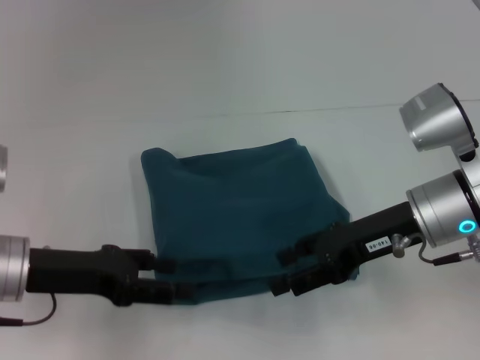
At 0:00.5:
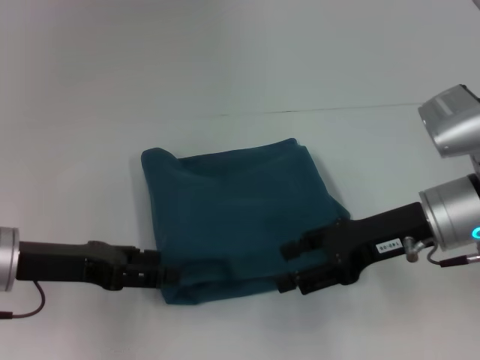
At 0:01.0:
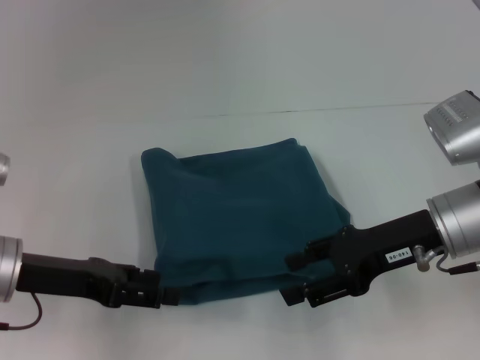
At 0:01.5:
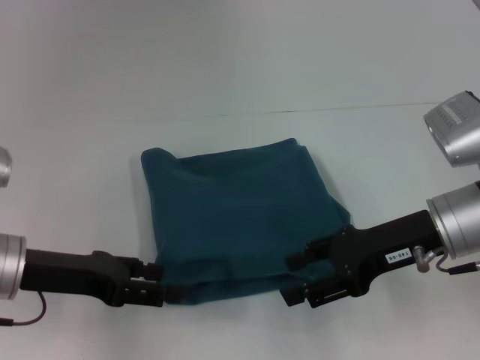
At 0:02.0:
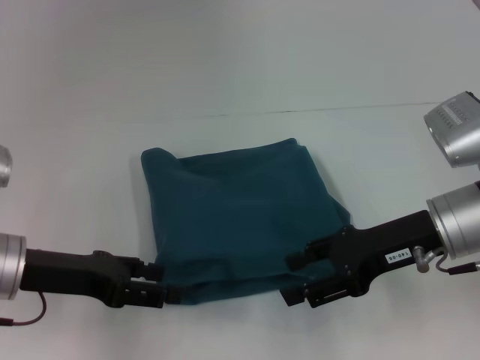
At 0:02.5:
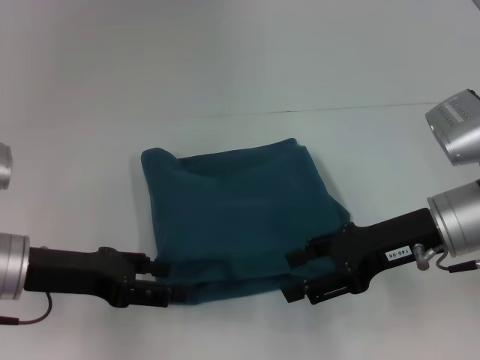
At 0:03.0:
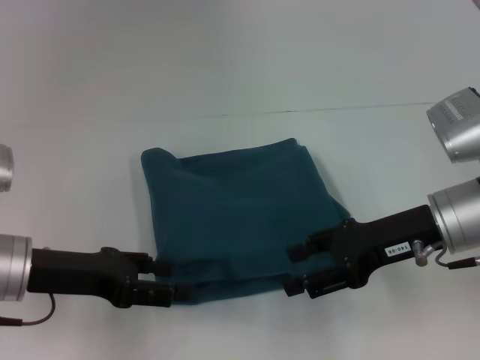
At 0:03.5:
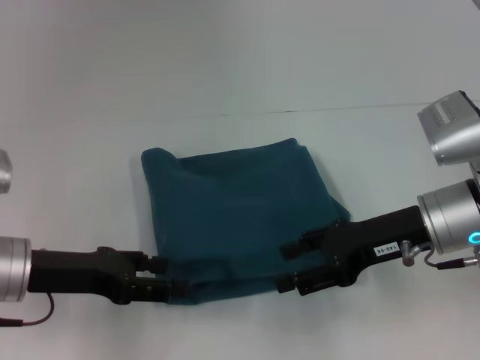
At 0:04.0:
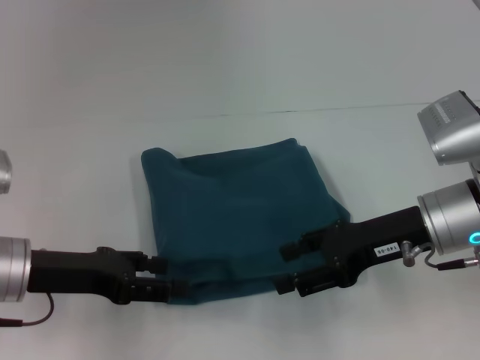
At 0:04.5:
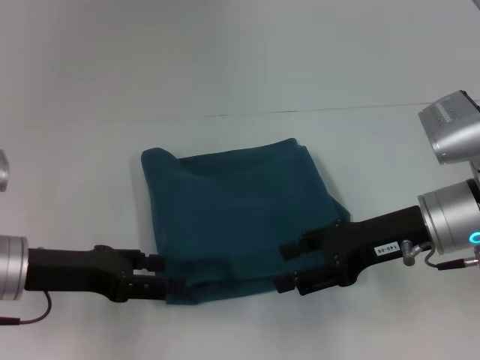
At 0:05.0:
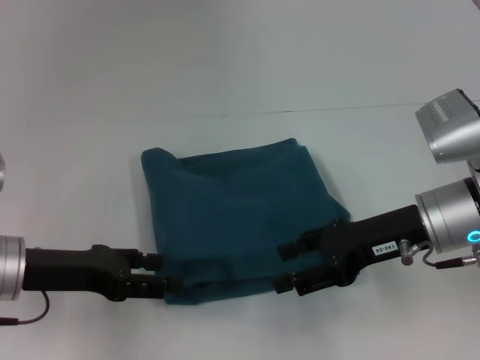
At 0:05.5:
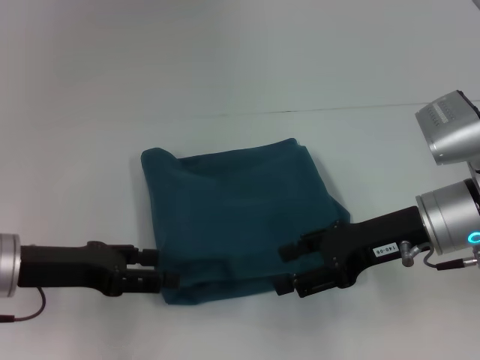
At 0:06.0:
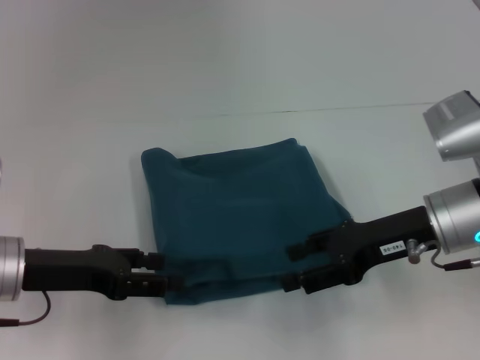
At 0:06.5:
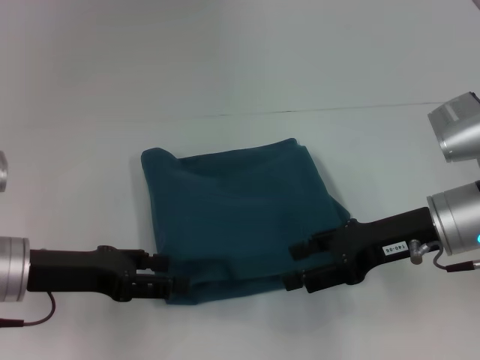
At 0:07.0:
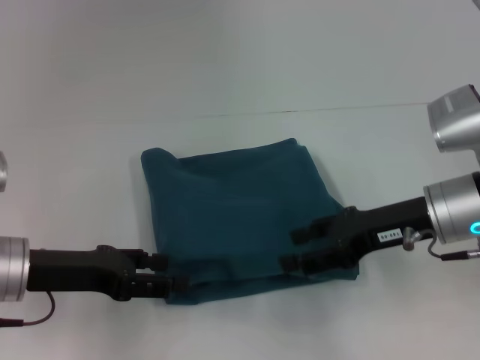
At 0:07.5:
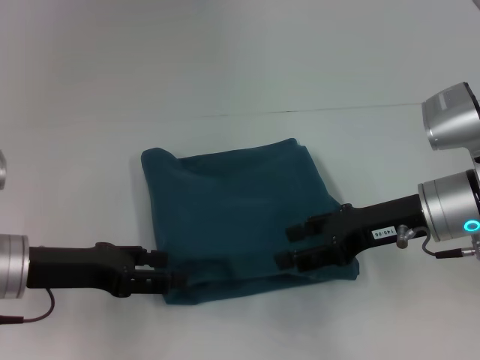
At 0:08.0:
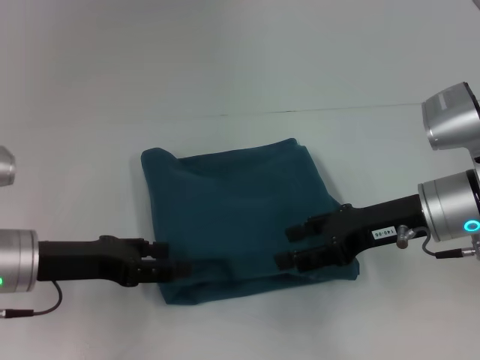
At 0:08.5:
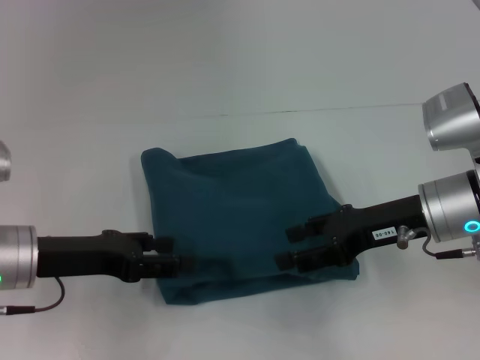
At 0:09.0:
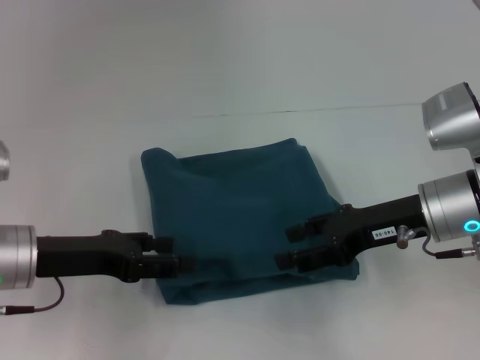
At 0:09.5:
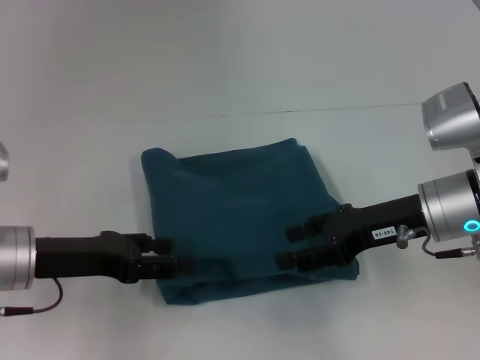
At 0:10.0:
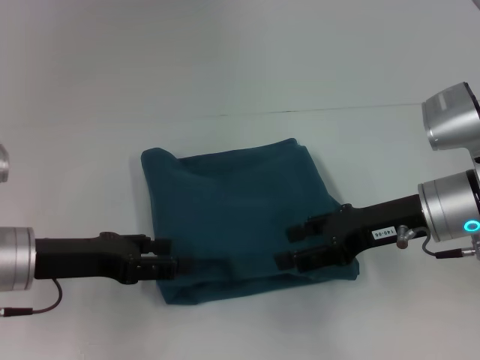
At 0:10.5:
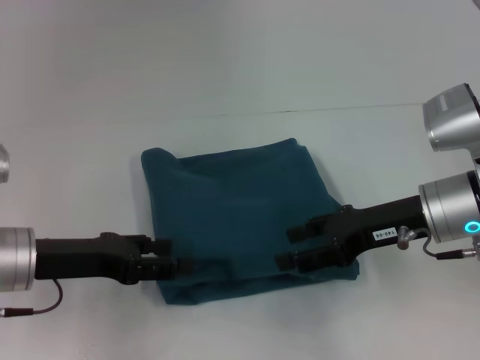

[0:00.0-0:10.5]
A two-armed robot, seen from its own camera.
0:00.0 to 0:02.0: The grippers move only a little.
0:02.0 to 0:04.0: Both grippers stay put.
0:04.0 to 0:06.5: Both grippers stay put.
0:06.5 to 0:10.5: Both grippers stay put.

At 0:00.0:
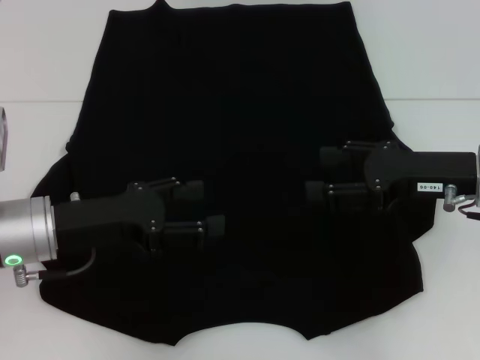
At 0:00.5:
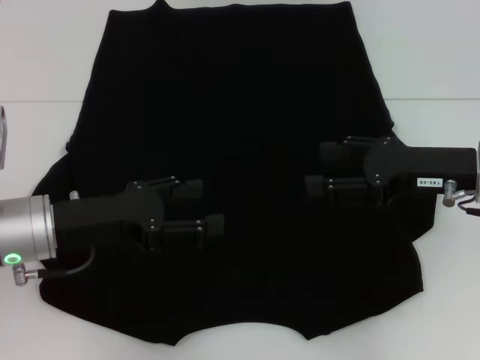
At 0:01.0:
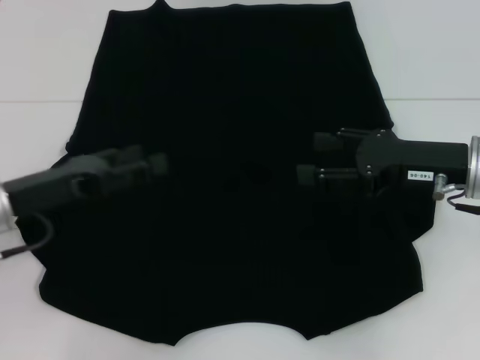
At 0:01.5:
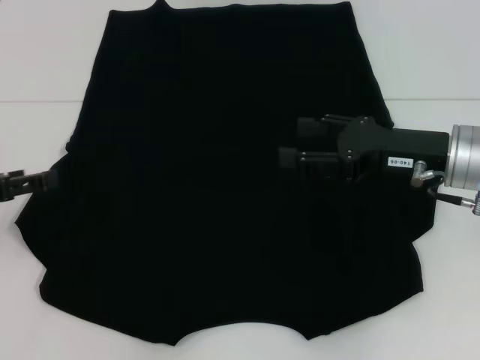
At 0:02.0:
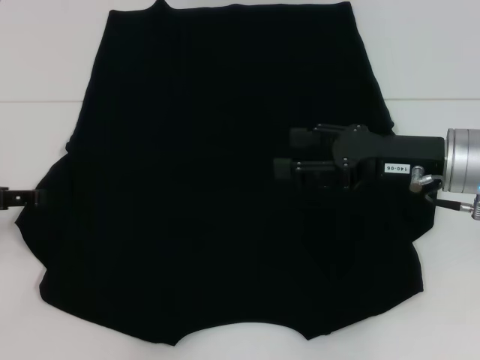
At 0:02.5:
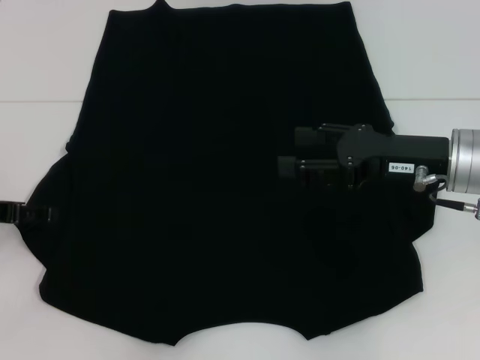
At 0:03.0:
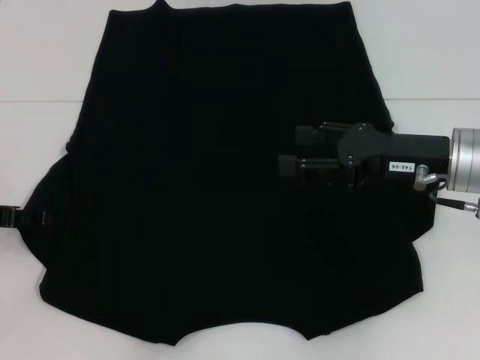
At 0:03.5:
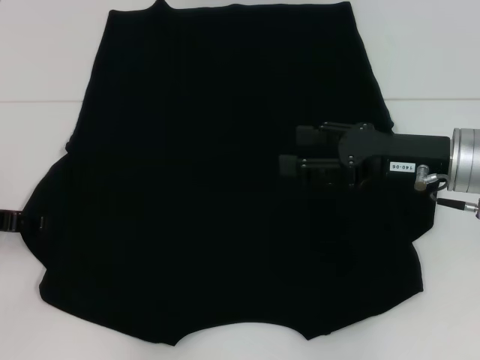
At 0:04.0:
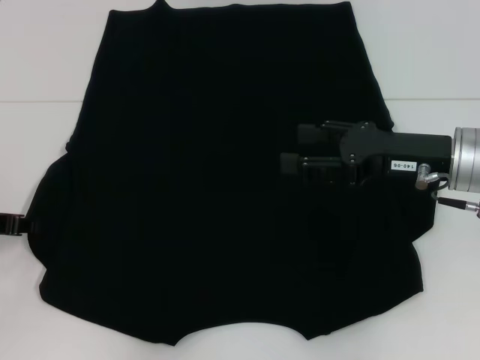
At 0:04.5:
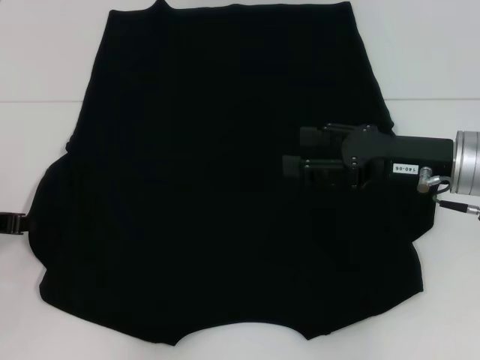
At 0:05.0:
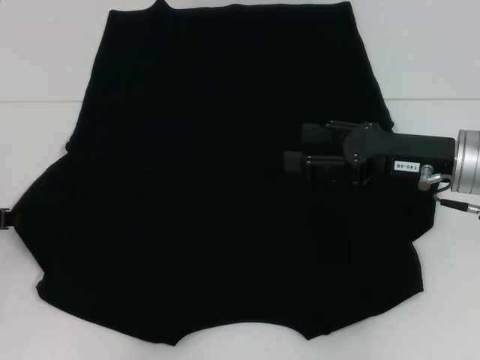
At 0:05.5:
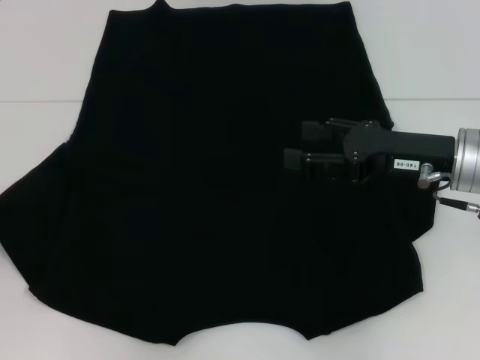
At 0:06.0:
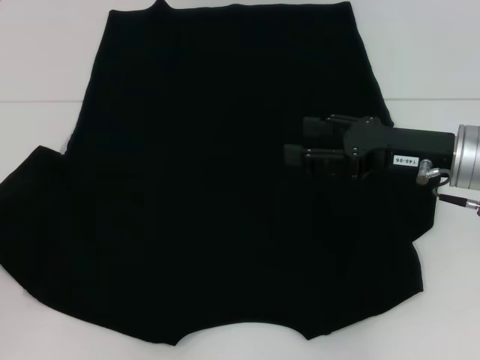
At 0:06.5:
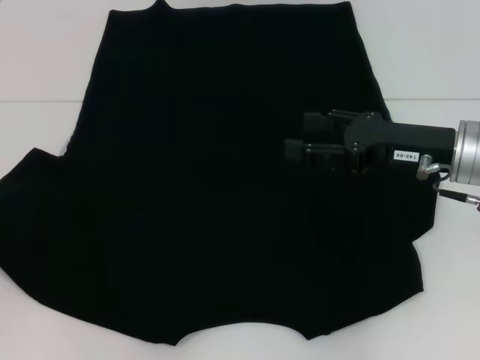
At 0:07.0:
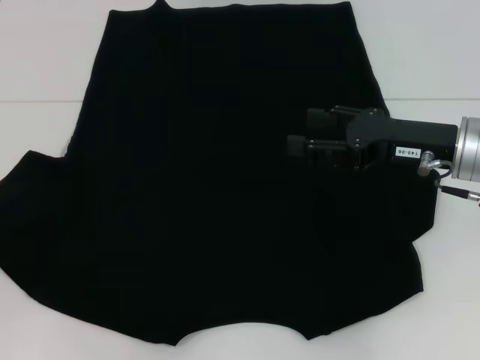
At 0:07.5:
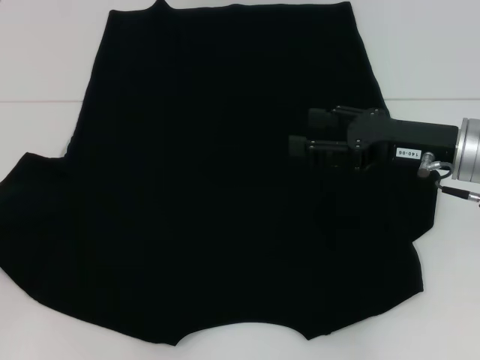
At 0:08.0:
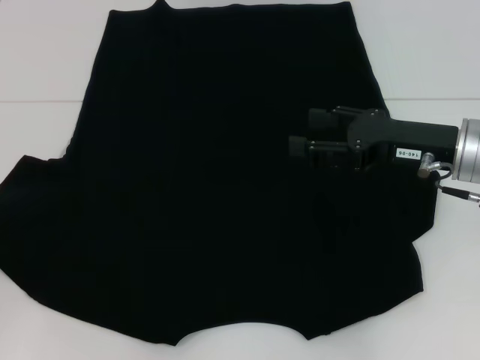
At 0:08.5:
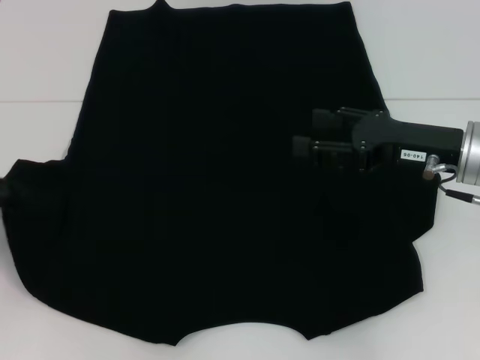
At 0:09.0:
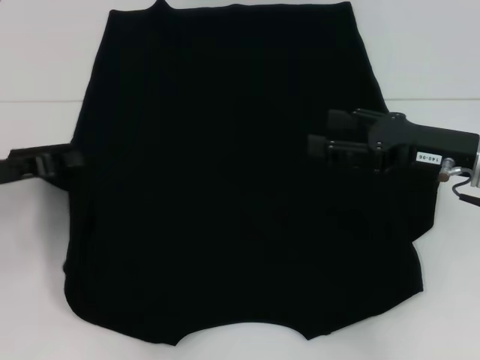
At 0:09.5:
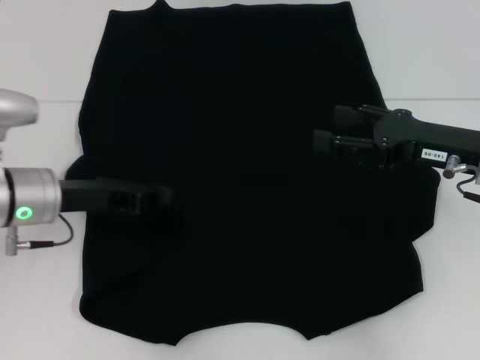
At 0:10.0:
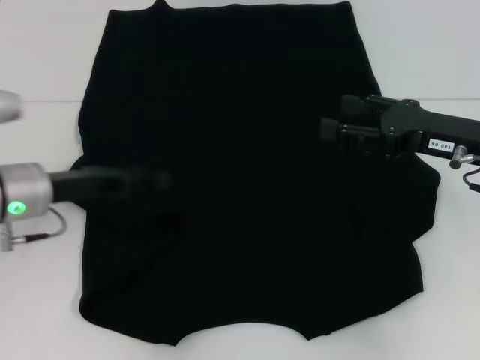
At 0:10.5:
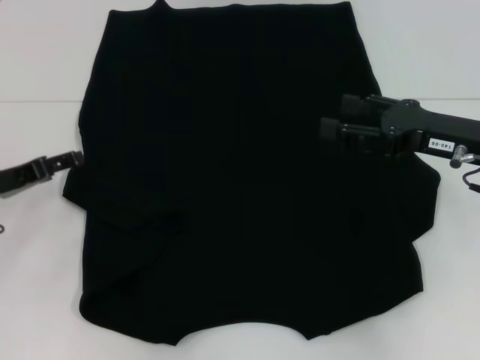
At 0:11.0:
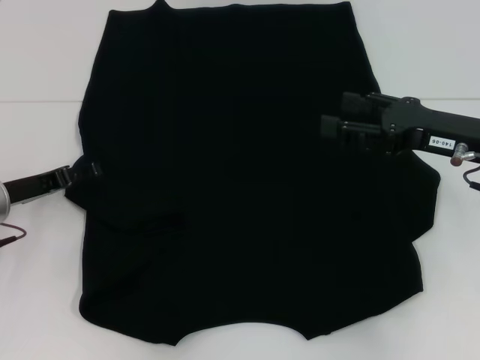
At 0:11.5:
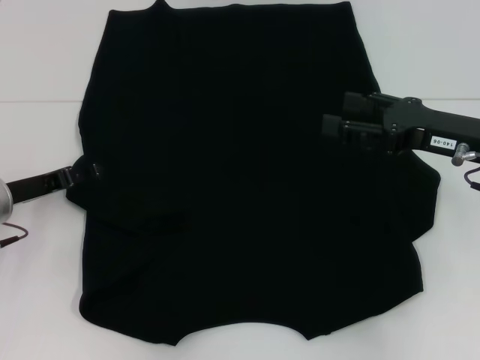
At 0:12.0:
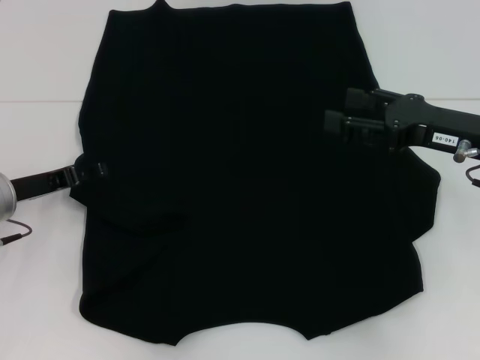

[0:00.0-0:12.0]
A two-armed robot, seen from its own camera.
0:00.0 to 0:02.0: The left gripper travels to the left by some 15 cm.
0:02.0 to 0:04.0: The left gripper closes.
0:04.0 to 0:06.0: The left gripper shifts by some 5 cm, and closes.
0:06.0 to 0:08.0: The grippers move only a little.
0:08.0 to 0:10.0: The left gripper heads to the right and forward, covering roughly 15 cm, and opens up.
0:10.0 to 0:12.0: The left gripper opens up.

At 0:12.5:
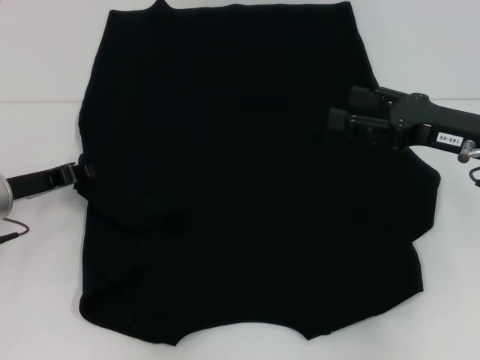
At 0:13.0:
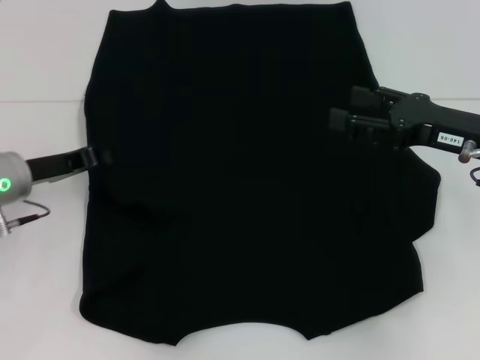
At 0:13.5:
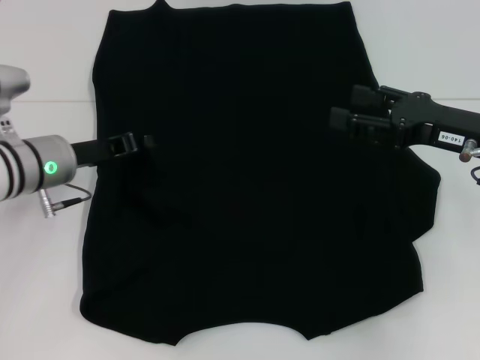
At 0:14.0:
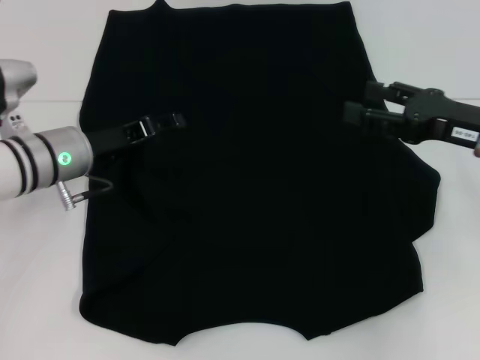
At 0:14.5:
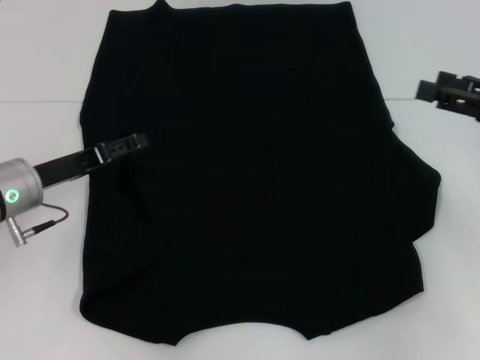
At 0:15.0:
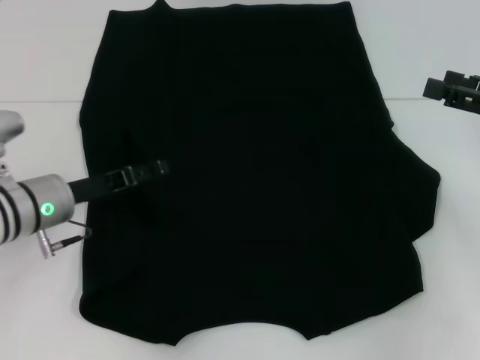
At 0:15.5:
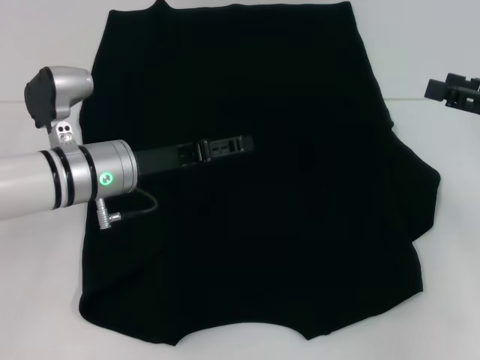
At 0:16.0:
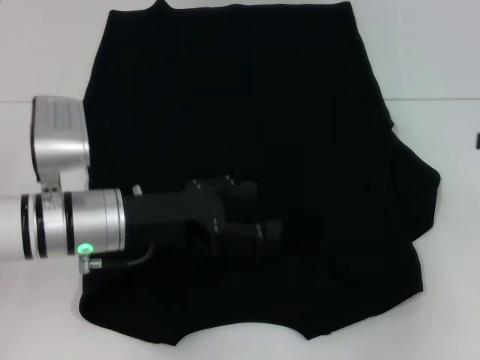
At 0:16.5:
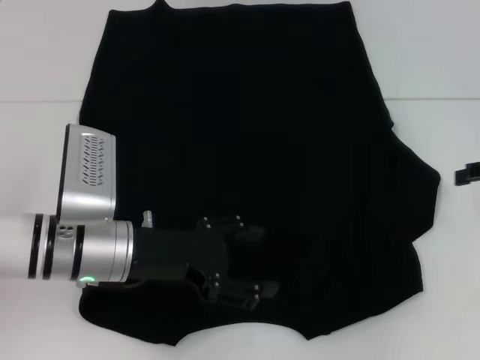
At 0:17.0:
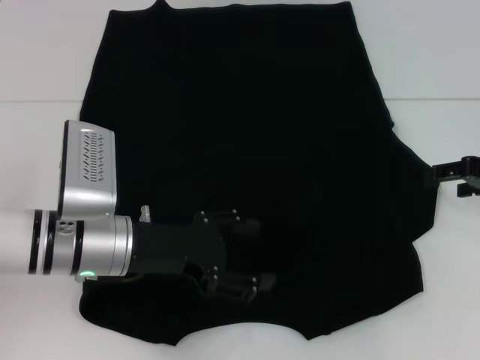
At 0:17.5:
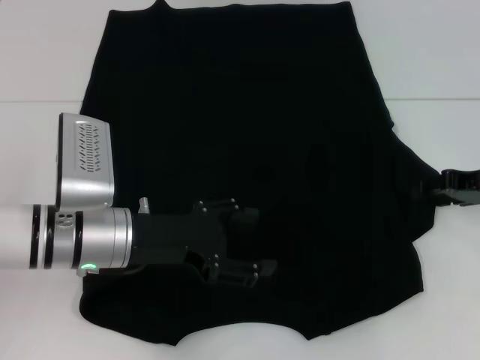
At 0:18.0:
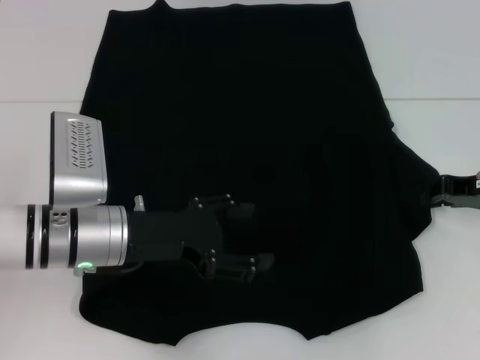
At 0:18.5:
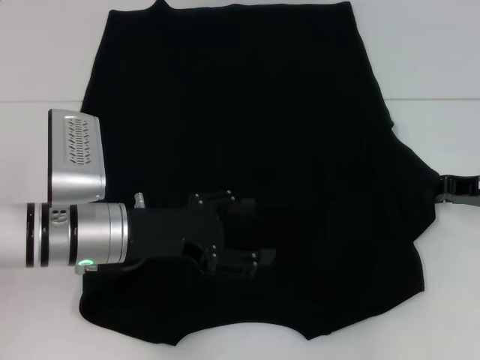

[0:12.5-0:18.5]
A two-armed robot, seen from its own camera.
0:12.5 to 0:14.5: The right gripper heads to the right, covering roughly 5 cm, while the left gripper opens its fingers.
0:14.5 to 0:16.5: The left gripper moves to the right, roughly 10 cm.
0:16.5 to 0:18.5: The right gripper goes about 5 cm downward, and closes up.
